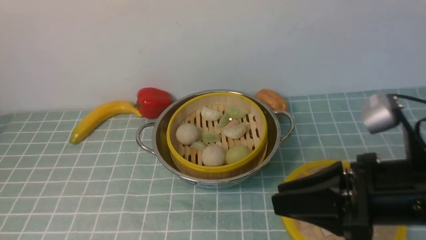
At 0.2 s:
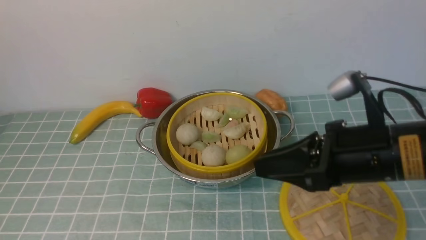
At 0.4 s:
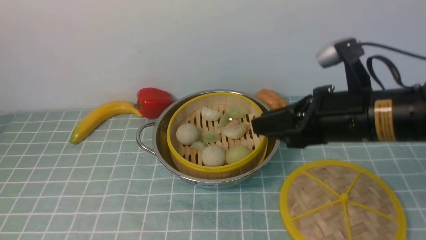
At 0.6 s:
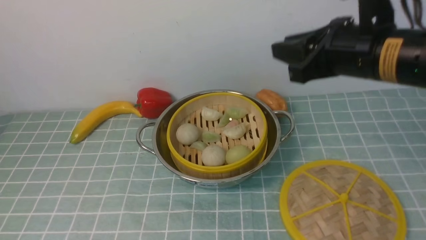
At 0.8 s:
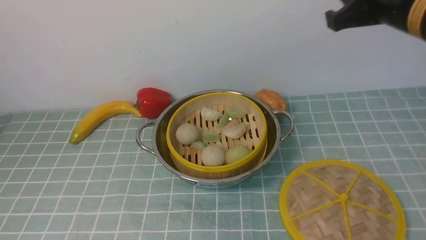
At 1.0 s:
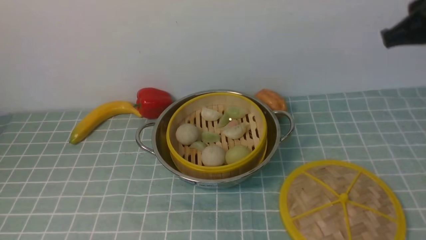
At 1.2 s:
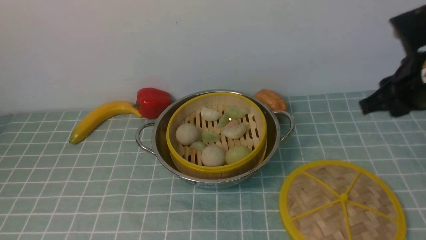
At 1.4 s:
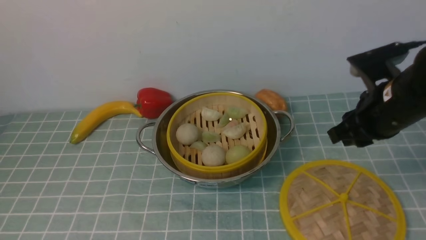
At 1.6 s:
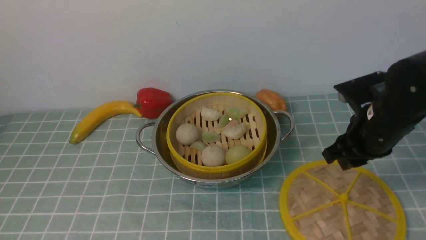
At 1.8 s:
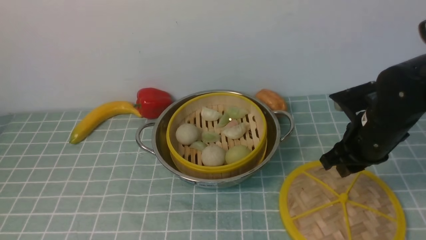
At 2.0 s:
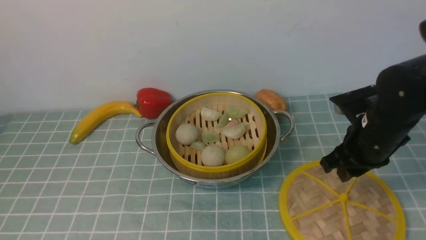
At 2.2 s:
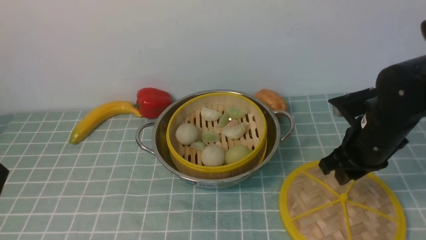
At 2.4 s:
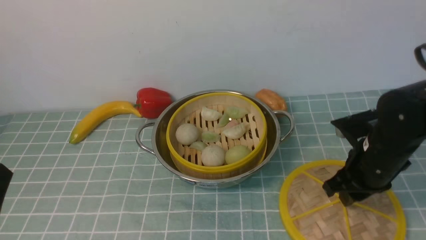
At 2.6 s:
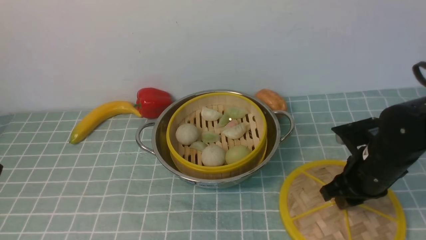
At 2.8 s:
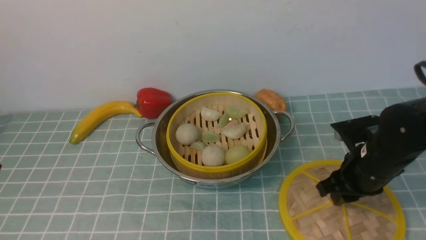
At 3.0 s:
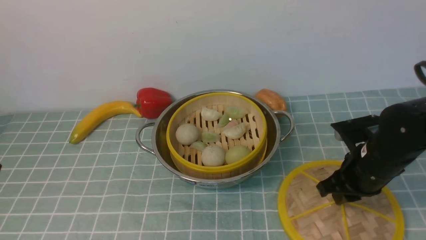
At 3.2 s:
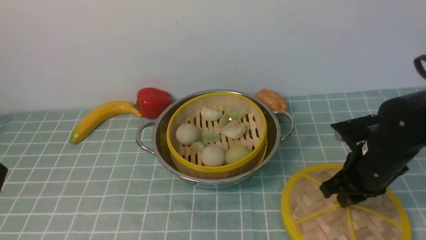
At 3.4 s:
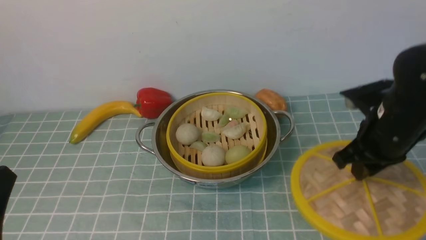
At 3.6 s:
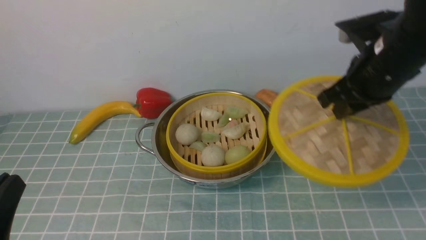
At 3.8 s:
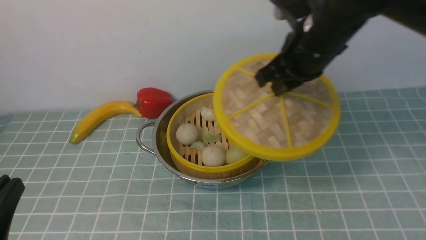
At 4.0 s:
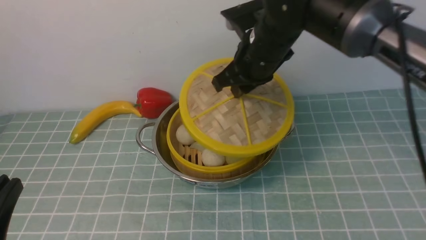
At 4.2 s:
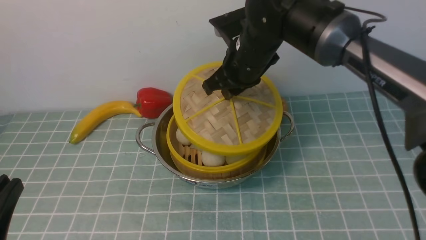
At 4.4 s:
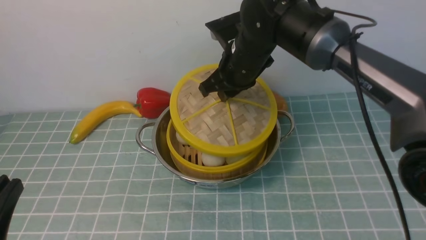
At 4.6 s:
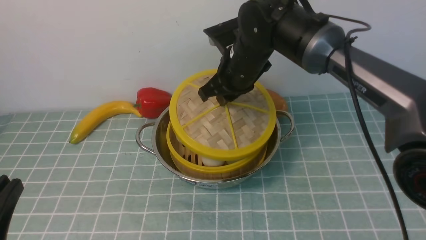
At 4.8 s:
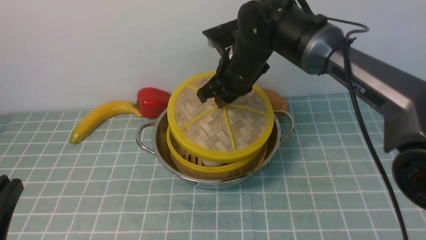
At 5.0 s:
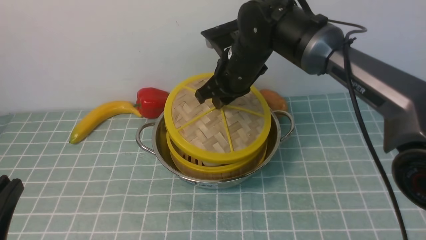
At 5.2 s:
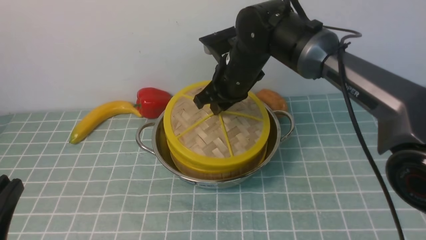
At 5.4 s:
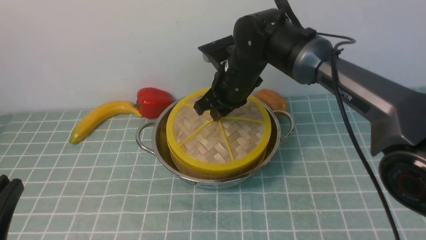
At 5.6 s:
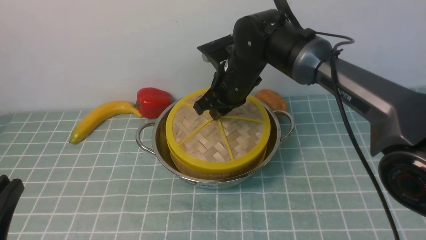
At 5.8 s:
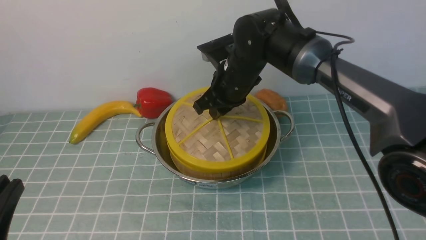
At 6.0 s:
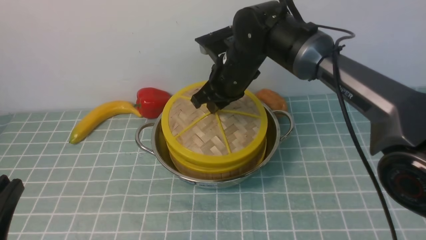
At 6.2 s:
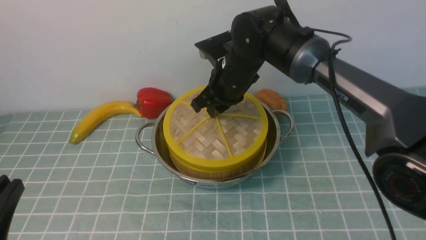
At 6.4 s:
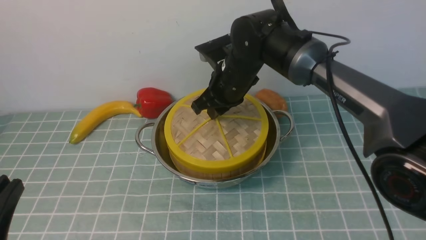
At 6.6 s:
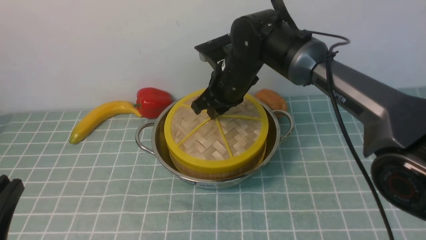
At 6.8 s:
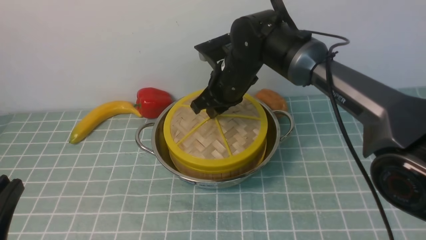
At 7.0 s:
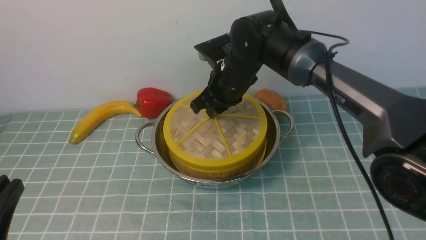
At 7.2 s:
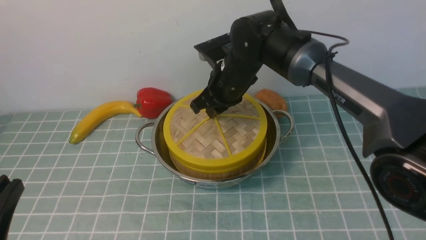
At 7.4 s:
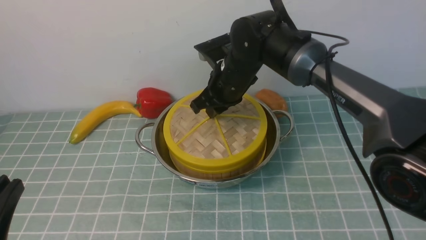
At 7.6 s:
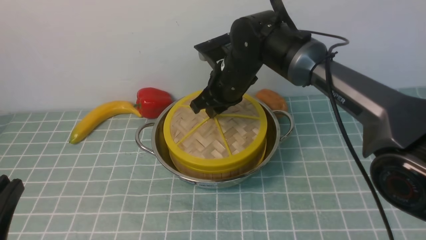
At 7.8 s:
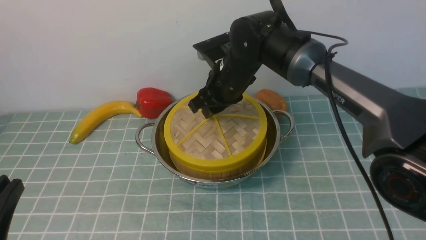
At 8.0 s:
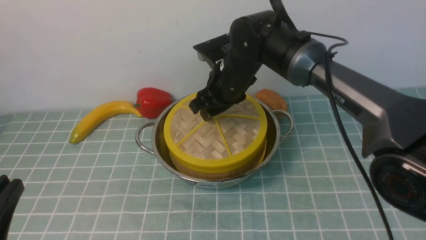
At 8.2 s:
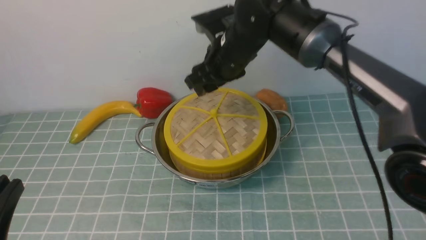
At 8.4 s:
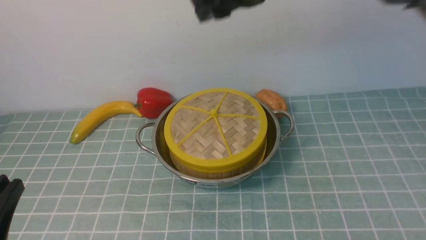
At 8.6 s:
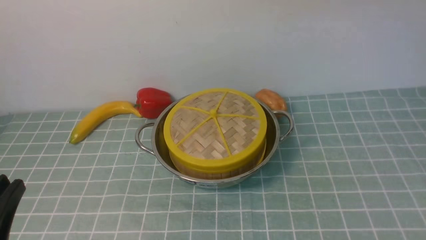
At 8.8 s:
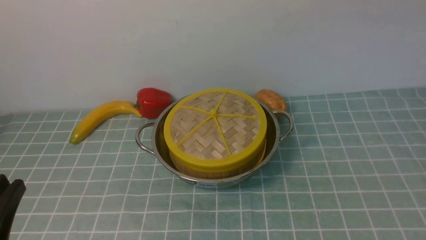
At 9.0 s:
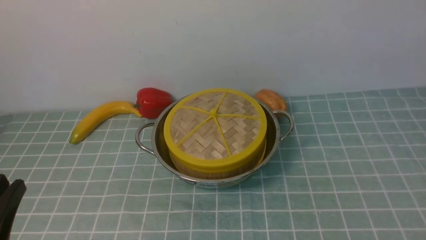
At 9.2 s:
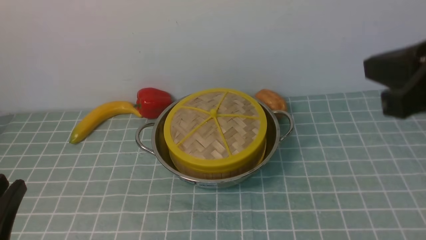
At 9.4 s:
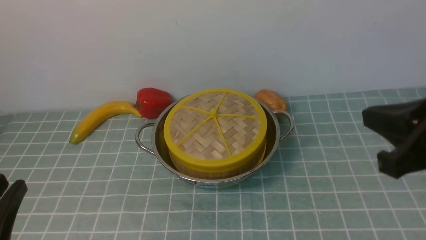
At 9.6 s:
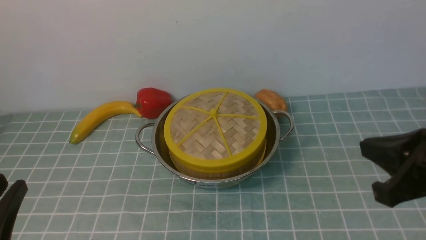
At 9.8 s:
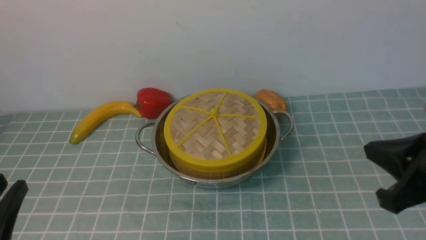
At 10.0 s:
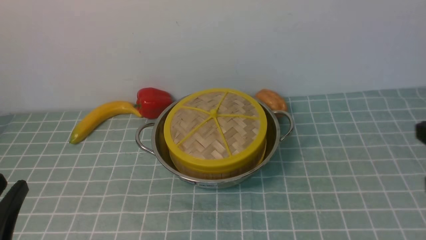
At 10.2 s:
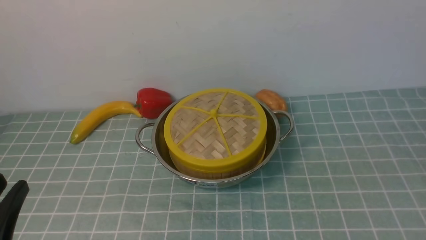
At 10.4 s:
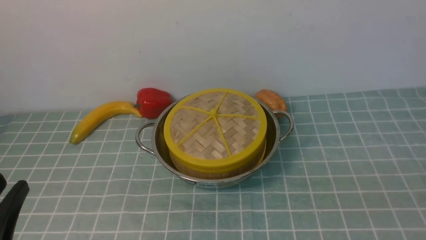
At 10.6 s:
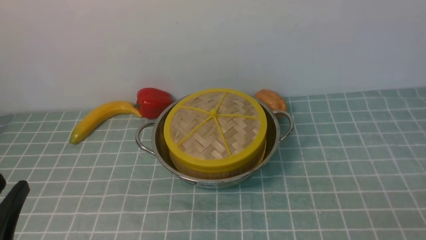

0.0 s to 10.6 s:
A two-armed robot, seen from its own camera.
Task of the whole recording: place the steamer in the pot on the blue tablecloth, and put the lid on the steamer.
Step, 0.0 to 3.6 s: use the right arm to lift the lid of the steamer.
Step, 3.8 to 8.6 s: use the right arm to place the steamer lid on the steamer.
0.0 to 1.6 s: The right gripper travels forward and downward by approximately 15 cm.
1.6 to 3.0 s: The right gripper goes roughly 5 cm downward.
3.0 to 4.6 s: The right gripper is displaced to the left, forward and upward by roughly 25 cm.
4.6 to 6.0 s: There are only small adjustments of the grippers.
6.0 to 7.6 s: Neither gripper changes place.
7.6 to 9.0 s: The right gripper heads upward, backward and to the right, covering about 35 cm, and opens and closes again.

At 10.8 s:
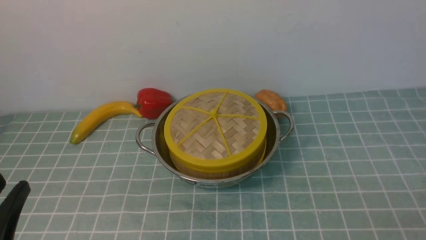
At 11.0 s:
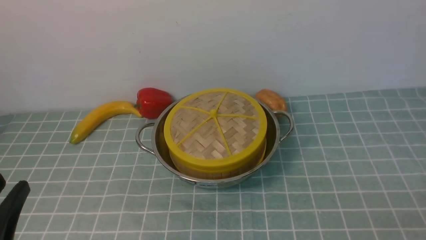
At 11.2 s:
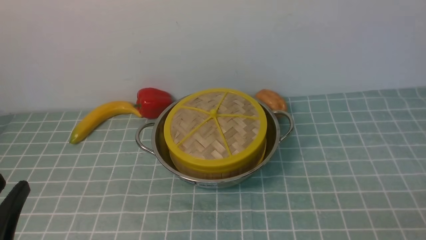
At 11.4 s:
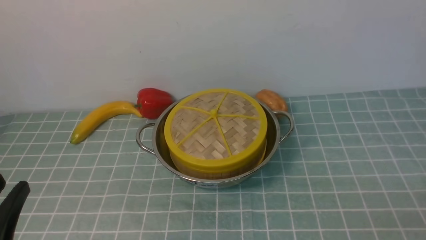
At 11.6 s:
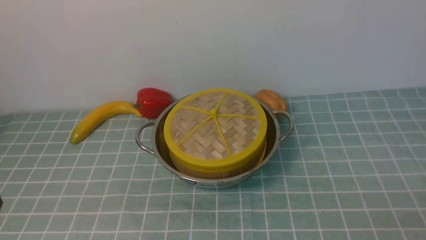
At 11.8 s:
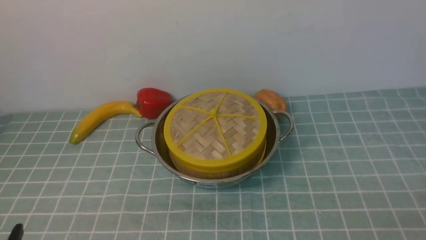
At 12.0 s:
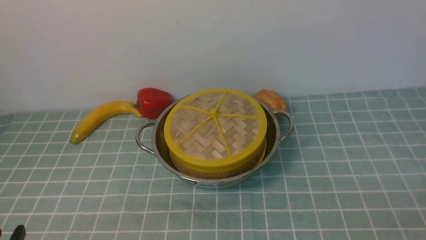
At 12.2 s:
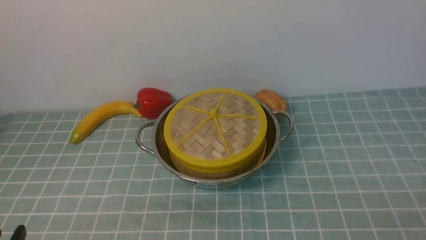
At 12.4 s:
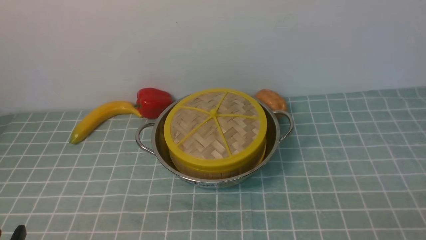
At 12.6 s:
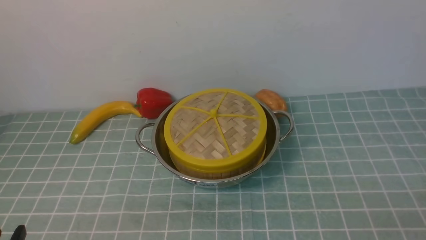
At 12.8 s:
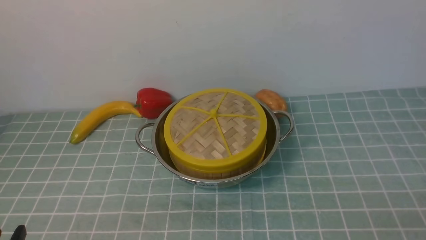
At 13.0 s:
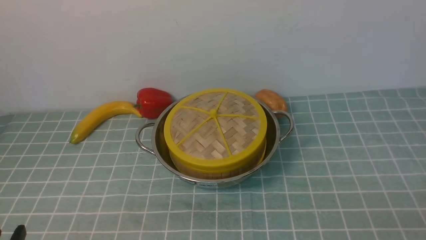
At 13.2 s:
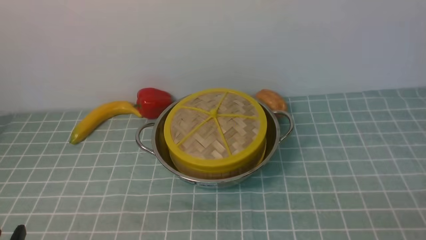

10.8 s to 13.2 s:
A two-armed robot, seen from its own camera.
Task of the whole recording: place the steamer in the pot on the blue tablecloth, and put the lid on the steamer.
10.8 to 12.0 s: The left gripper shifts approximately 5 cm downward.
12.0 to 13.2 s: Both grippers stay about where they are.

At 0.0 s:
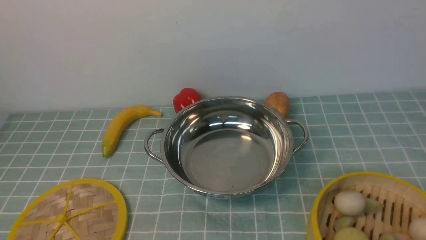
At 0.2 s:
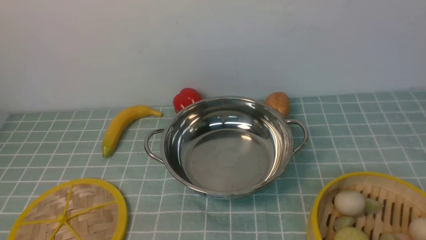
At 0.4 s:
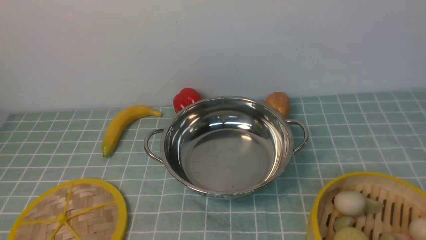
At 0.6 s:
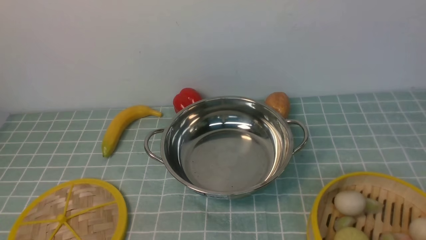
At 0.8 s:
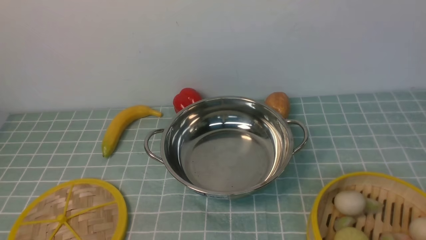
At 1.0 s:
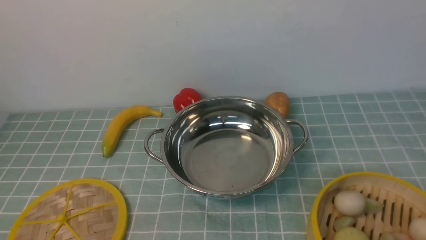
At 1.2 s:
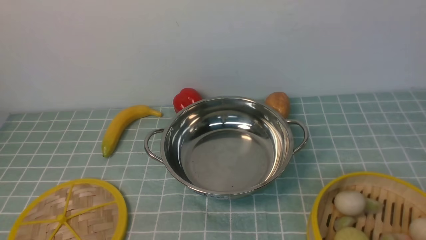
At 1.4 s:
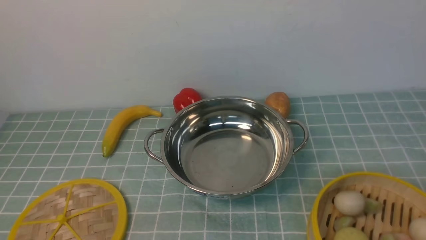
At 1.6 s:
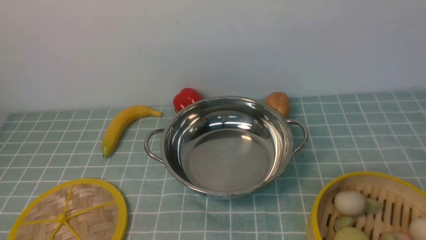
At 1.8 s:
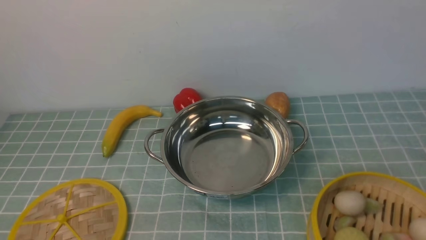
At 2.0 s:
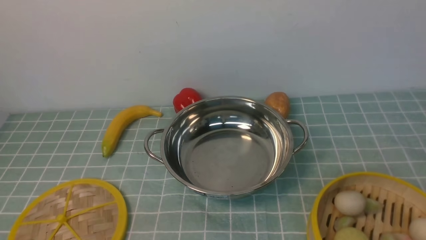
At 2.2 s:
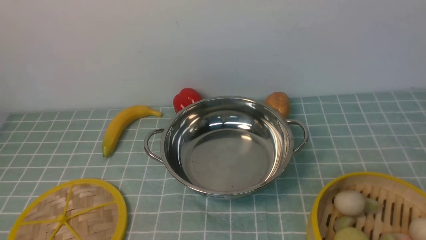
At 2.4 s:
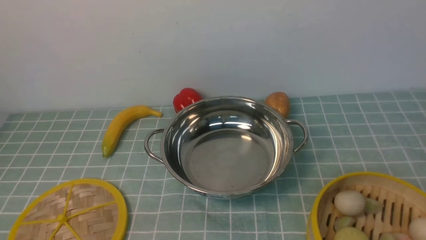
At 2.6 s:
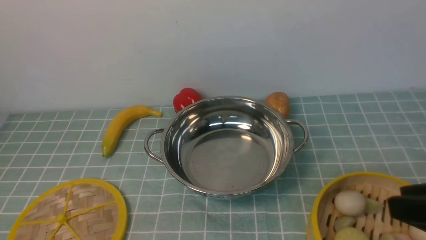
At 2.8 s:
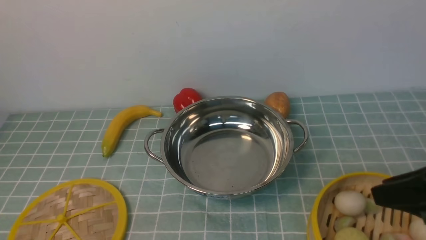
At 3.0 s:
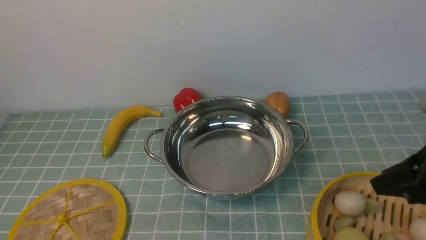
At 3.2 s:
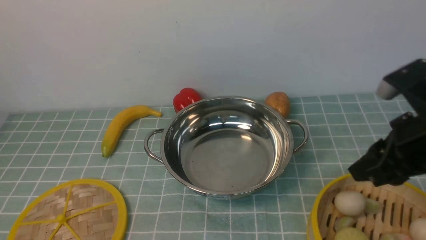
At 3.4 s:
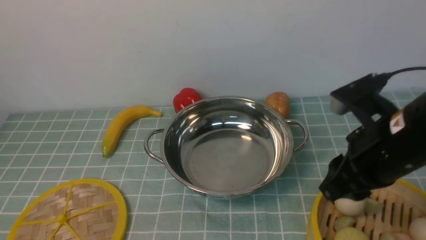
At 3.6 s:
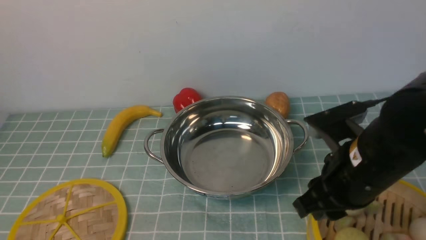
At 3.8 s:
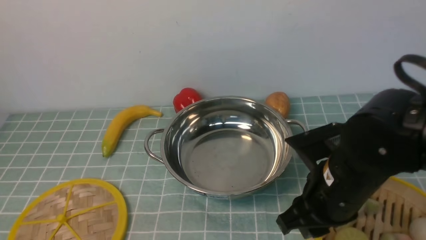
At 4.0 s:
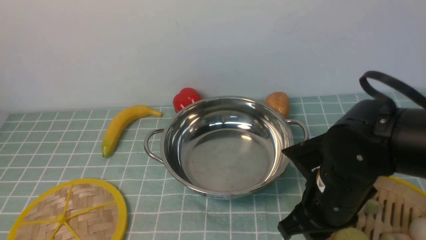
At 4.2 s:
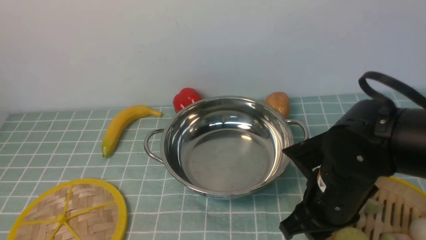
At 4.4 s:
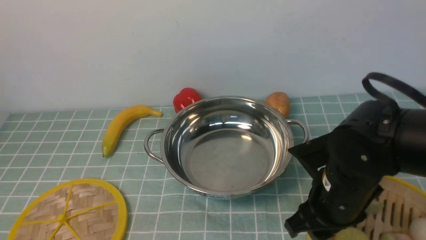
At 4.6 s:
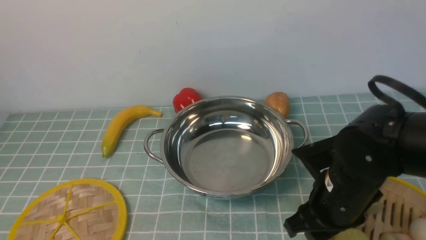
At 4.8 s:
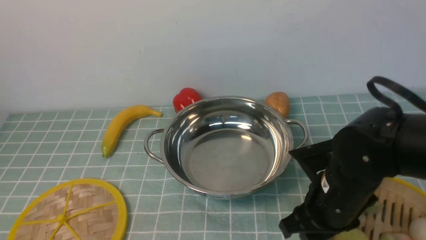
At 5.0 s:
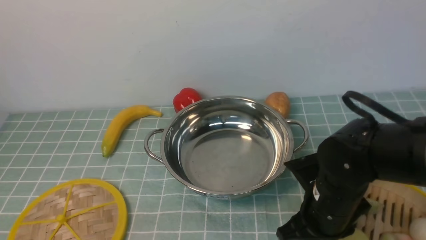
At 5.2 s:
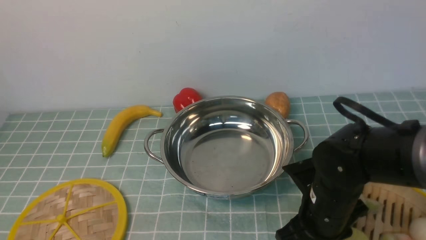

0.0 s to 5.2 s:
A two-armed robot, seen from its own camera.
Task of the whole recording: place the steamer in the pot on the blue tablecloth, and put the lid on the steamer.
1.8 to 3.4 s: The right gripper travels forward and to the left by approximately 20 cm.
3.4 to 5.2 s: The right gripper is displaced downward and to the left by some 15 cm.
